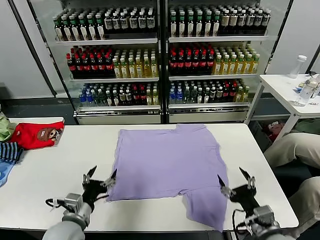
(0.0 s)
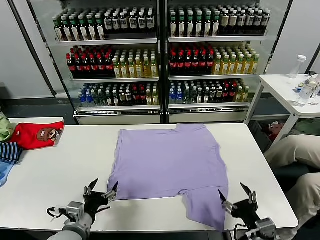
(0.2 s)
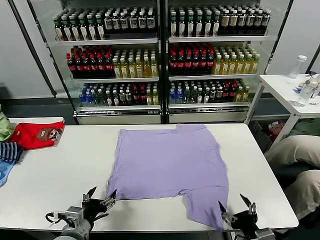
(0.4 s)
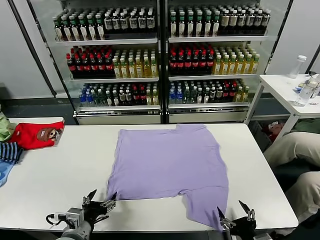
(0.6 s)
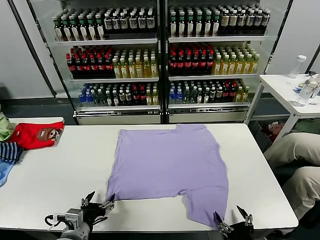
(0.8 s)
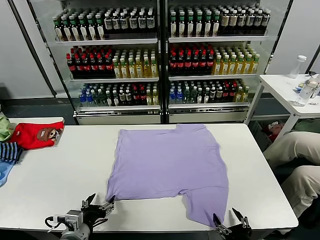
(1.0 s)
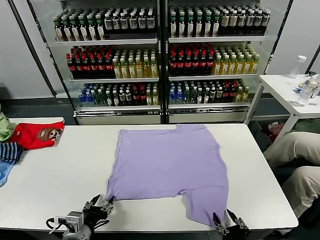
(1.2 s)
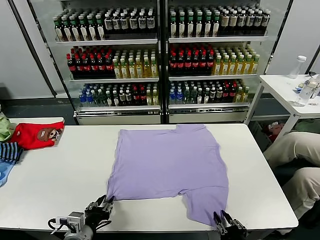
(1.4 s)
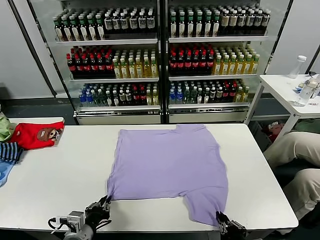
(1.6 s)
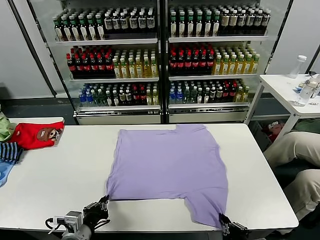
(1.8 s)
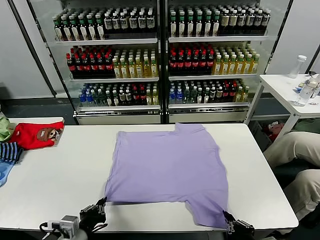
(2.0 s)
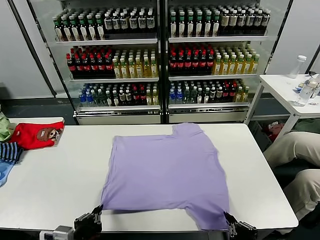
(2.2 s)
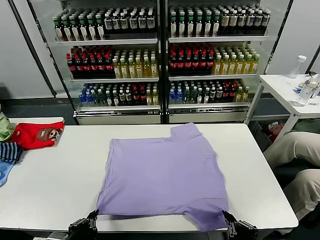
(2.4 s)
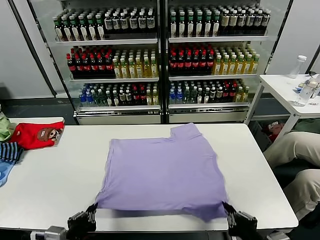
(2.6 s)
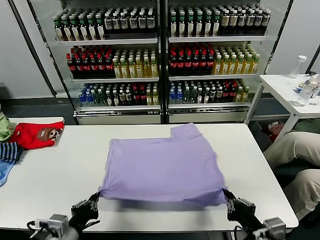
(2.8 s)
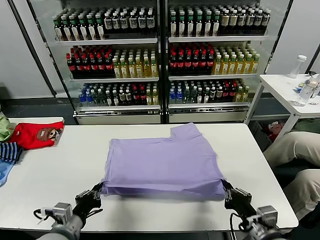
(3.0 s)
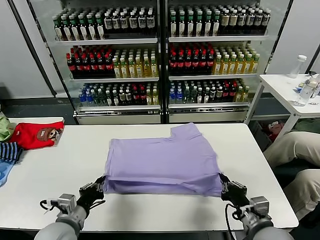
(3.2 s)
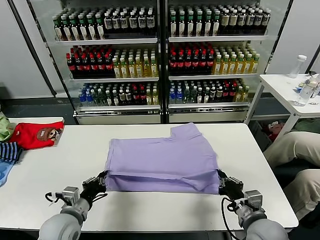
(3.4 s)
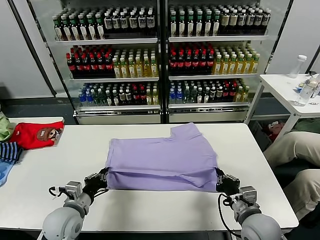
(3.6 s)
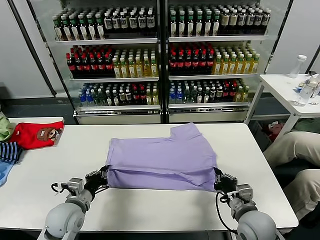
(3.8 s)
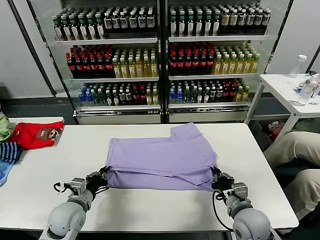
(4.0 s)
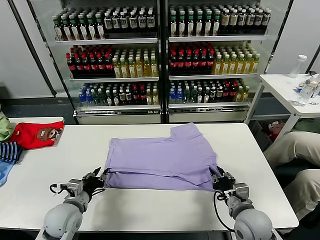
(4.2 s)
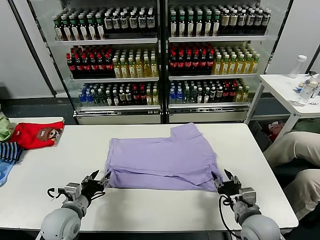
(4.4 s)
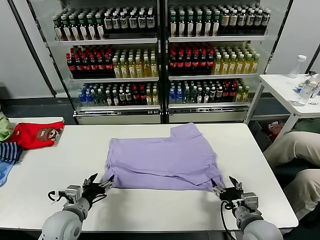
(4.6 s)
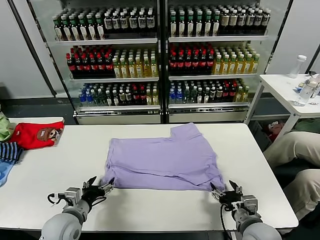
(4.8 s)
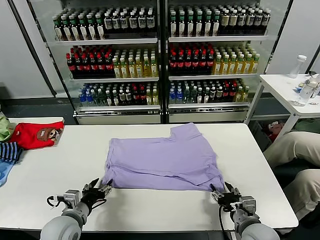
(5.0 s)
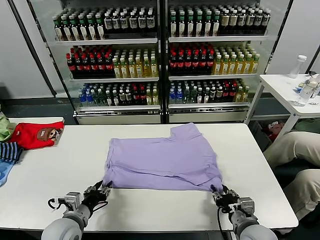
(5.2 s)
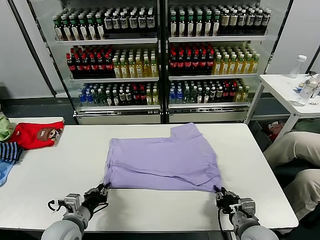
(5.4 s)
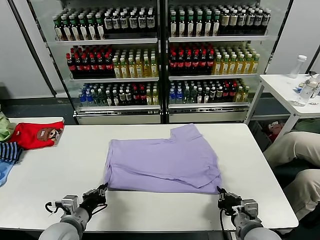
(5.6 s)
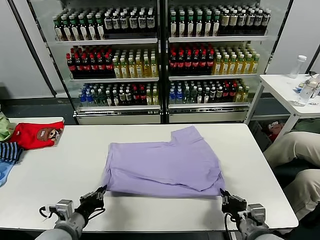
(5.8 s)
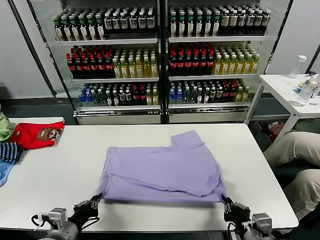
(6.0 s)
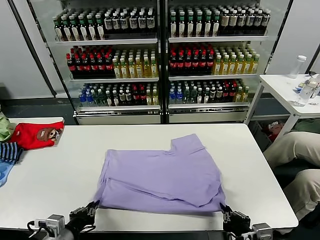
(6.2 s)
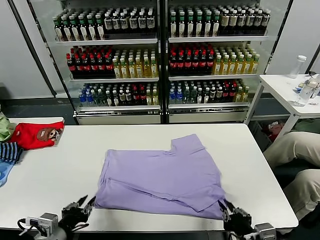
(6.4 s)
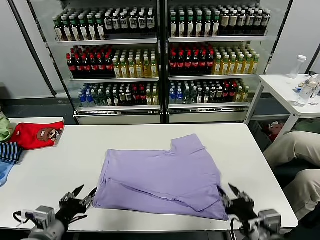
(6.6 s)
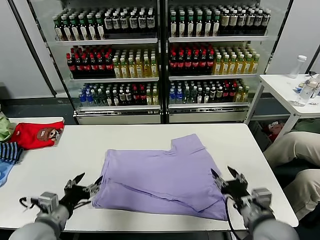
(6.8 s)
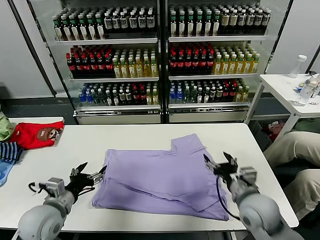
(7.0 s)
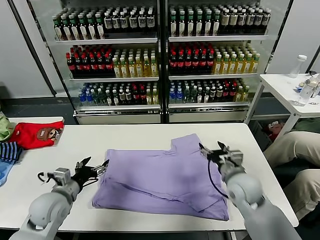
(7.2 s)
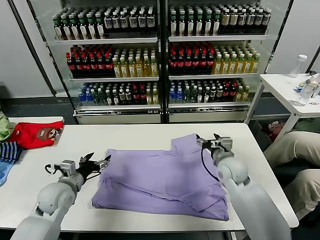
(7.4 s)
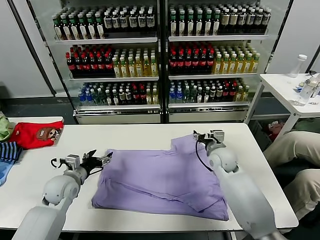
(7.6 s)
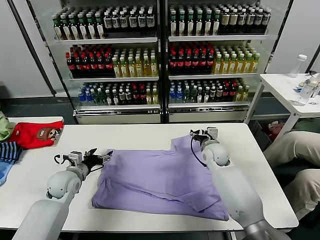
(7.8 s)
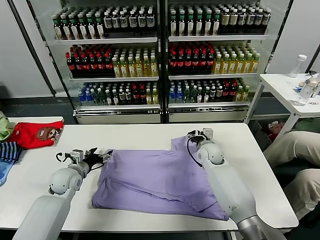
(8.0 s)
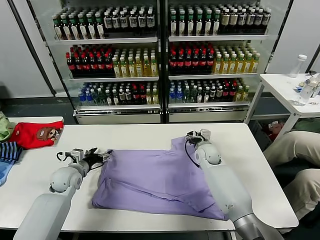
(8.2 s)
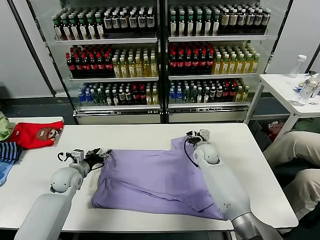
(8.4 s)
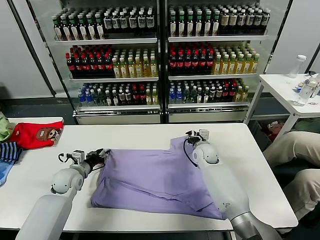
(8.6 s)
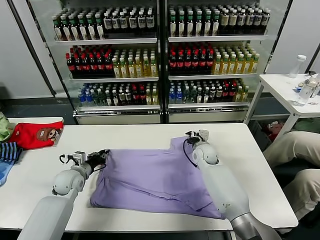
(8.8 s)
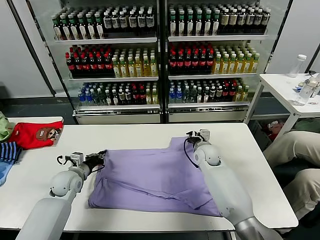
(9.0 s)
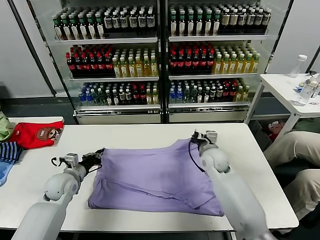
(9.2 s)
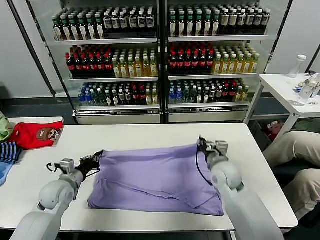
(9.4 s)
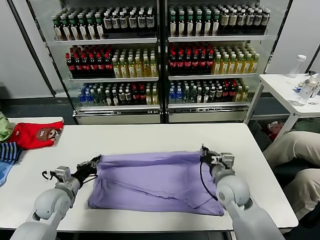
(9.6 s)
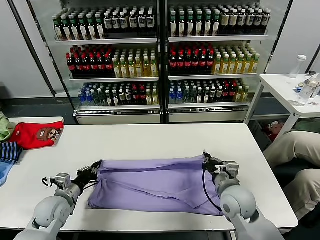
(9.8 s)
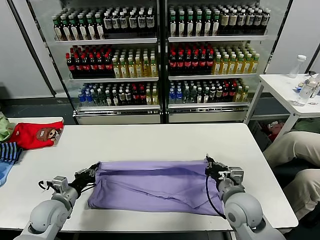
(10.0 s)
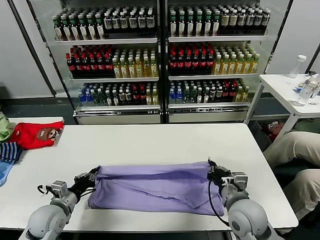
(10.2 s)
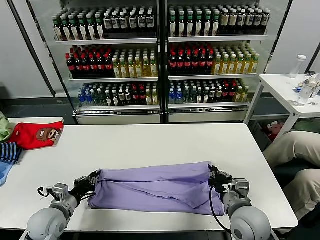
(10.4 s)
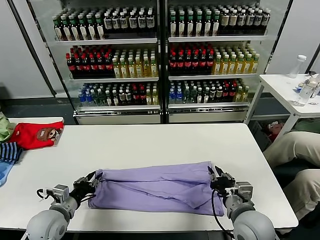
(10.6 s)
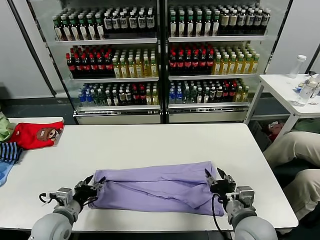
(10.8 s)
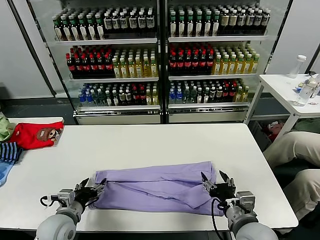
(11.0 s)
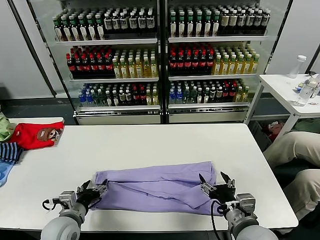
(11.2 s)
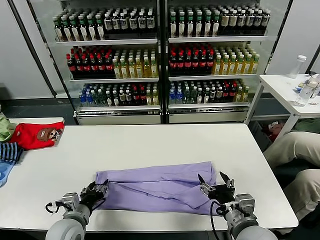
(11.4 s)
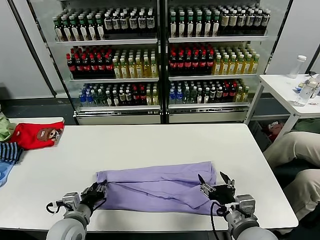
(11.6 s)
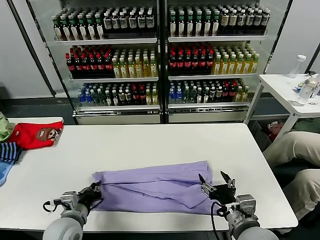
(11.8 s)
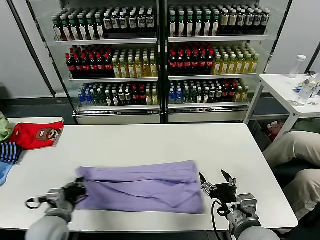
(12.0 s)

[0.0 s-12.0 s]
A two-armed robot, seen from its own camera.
Task of the whole recording: fold and organize the clothes.
Step, 0.0 to 2.2 s: use both grippers simultaneously to clamp the lower edge of the clothing fabric.
Step, 2.4 to 4.4 s: use both grippers to drag the lower edge of the fabric forward and fold it over the upper edge.
Step, 4.6 to 6.6 s: Drag the clothes downward with both gripper.
Step, 6.8 to 8.8 s: use both grippers simultaneously to clamp the upper edge of the clothing fabric.
Step, 9.0 to 11.2 s: use both grippers to drag the upper edge of the fabric backward and fold it over the lower edge.
Step, 11.4 to 11.8 s: use the left gripper to clamp the left edge of the fabric.
1.6 to 3.0 s: The left gripper moves some 5 cm backward and comes back. Meanwhile the right gripper travels forward and upward by roughly 10 cm.
3.0 to 4.4 s: The right gripper shifts by some 5 cm, and opens its fingers, while the left gripper moves forward, about 10 cm, and opens up.
4.4 to 6.0 s: Both grippers travel together backward, some 10 cm. The right gripper closes up, while the left gripper closes its fingers.
6.0 to 7.6 s: The right gripper goes roughly 35 cm forward, and opens up, while the left gripper goes approximately 20 cm forward, and opens.
7.6 to 9.0 s: The left gripper ends up approximately 5 cm from where it was, and closes up, while the right gripper closes its fingers.
9.0 to 10.4 s: The right gripper goes about 25 cm backward; the left gripper goes approximately 15 cm backward.
10.4 to 12.0 s: The left gripper ends up roughly 5 cm from where it was, and opens and closes again. Meanwhile the right gripper heads backward, covering about 5 cm, and opens up.

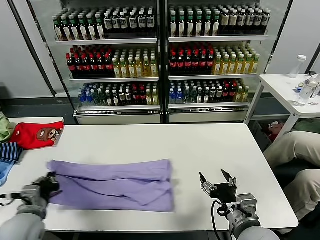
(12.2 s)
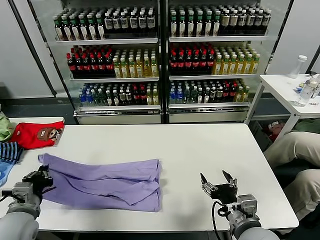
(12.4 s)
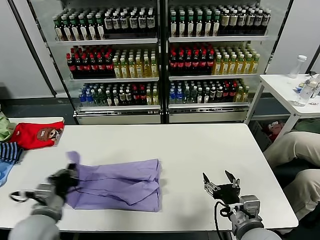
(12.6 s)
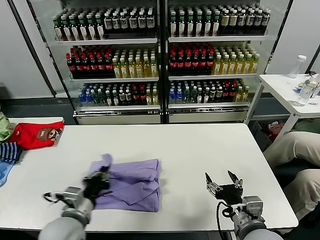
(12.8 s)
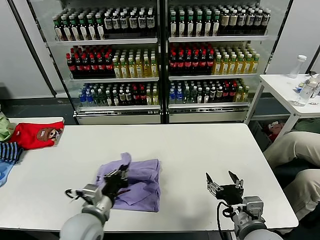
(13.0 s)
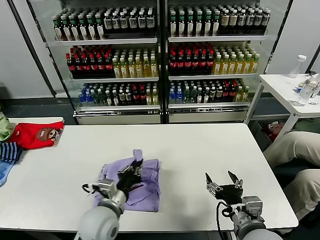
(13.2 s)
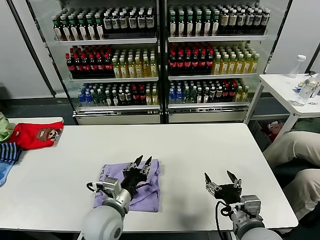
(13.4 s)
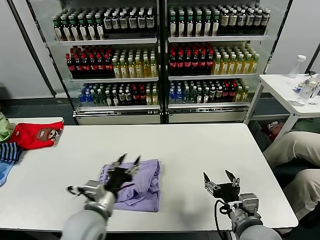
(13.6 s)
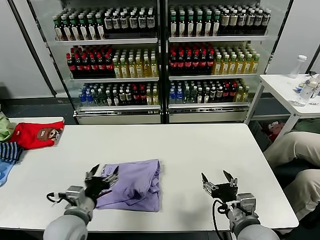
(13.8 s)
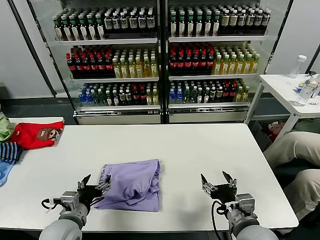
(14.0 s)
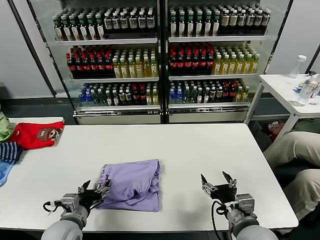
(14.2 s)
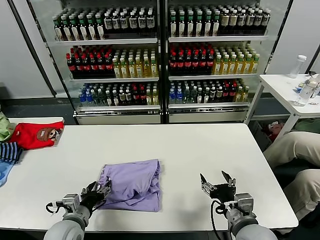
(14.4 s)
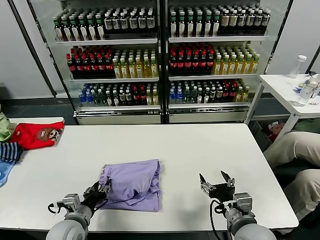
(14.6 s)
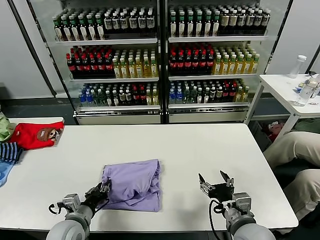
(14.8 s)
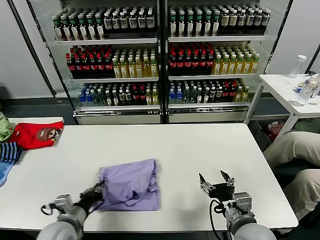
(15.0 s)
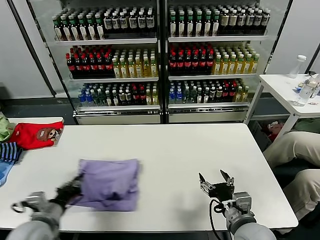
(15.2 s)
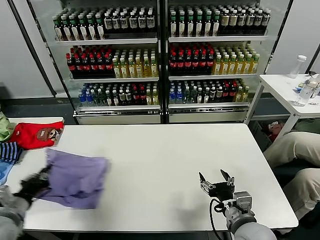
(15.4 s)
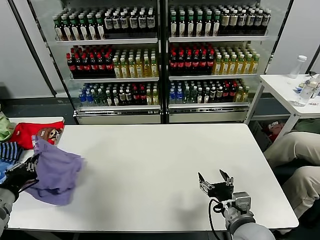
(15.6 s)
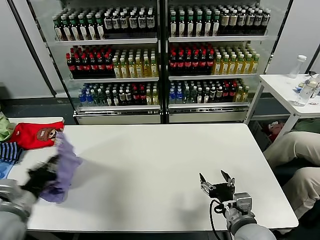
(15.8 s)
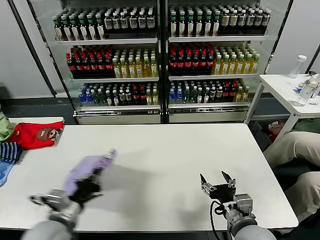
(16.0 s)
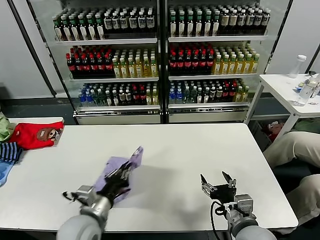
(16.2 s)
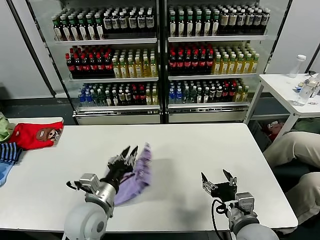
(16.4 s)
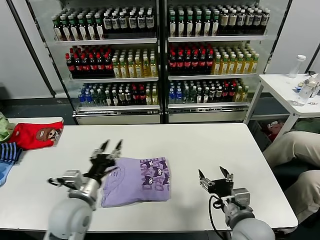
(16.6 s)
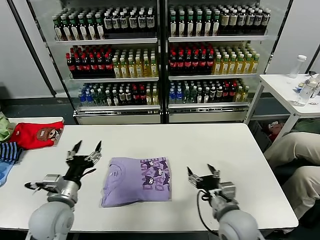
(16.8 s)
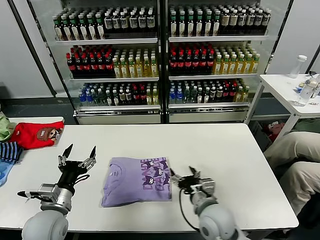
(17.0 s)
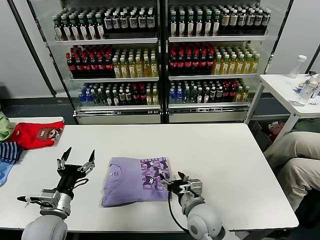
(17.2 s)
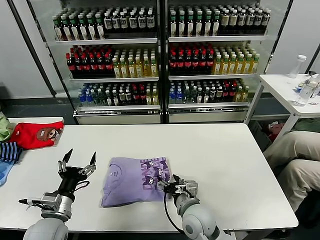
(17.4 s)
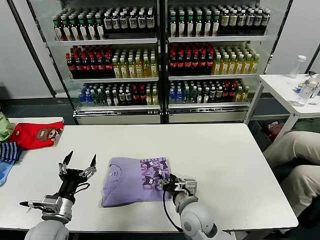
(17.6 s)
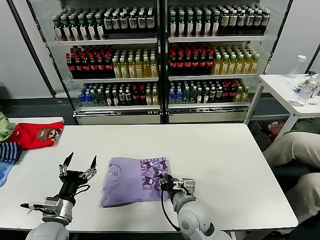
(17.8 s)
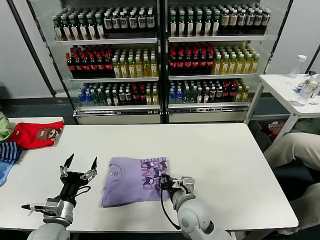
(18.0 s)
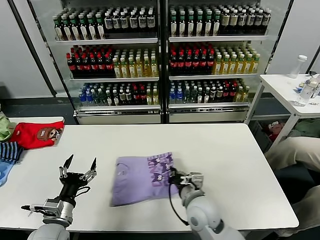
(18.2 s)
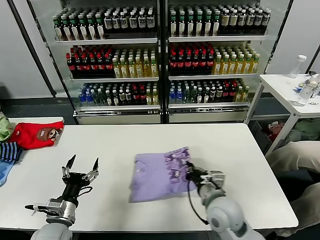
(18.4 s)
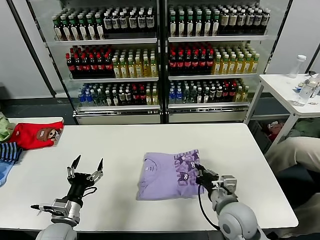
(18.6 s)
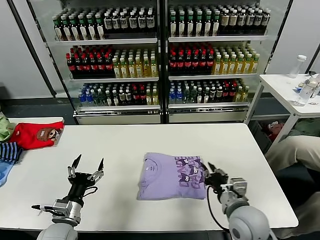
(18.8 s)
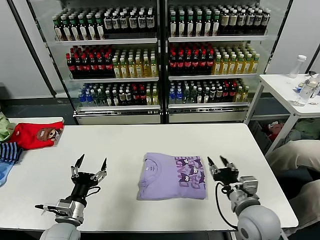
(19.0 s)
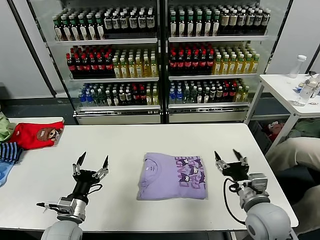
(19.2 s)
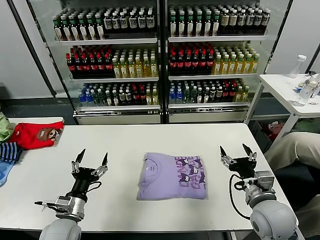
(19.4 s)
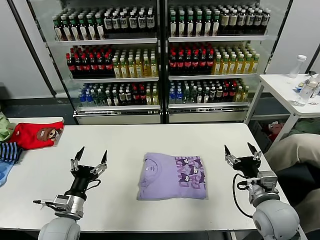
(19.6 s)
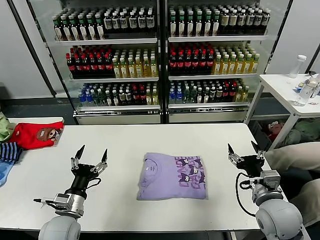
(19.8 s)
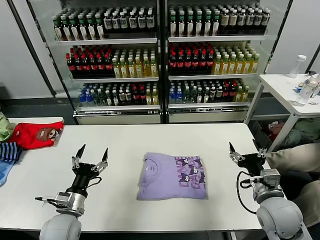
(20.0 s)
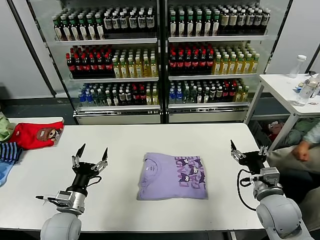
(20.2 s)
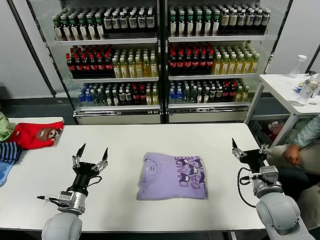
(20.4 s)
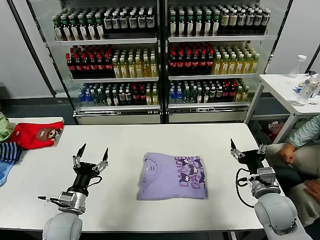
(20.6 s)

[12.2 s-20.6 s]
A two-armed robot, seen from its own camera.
Task of the whole recording: fold and organize the clothes.
Step, 12.2 to 13.4 s: use the left gripper to drag the left edge of the fabric to the left and folds it over the right edge.
Step, 13.8 to 16.8 s: Flip the folded clothes over with left gripper.
Step, 17.0 to 19.2 s: Drag the clothes to the center of the table.
12.2 to 13.6 s: The left gripper is displaced to the right by some 20 cm, and opens up.
13.6 to 15.0 s: The left gripper shifts some 15 cm to the left and downward, and closes.
15.0 to 16.4 s: The left gripper heads to the right and upward, covering about 15 cm.
16.4 to 17.8 s: The left gripper heads to the left and downward, covering some 15 cm, and opens, while the right gripper is displaced to the left, forward and downward by approximately 15 cm, and closes up.
17.8 to 19.2 s: The right gripper travels to the right and upward by approximately 20 cm, and closes, then opens again.
19.2 to 20.6 s: The right gripper heads to the right, covering some 5 cm.

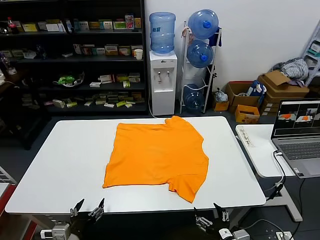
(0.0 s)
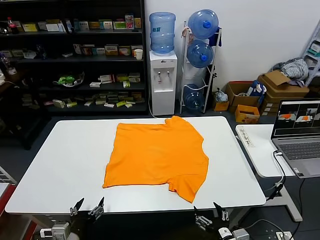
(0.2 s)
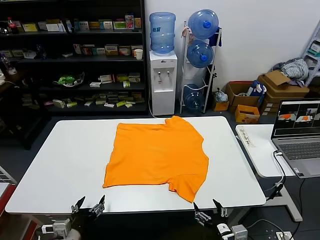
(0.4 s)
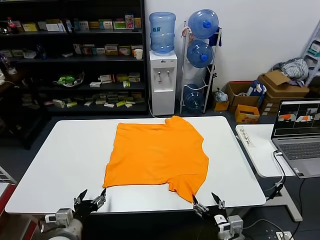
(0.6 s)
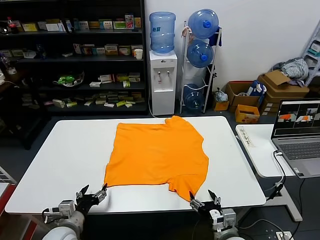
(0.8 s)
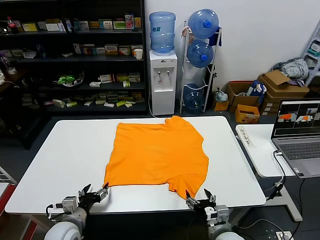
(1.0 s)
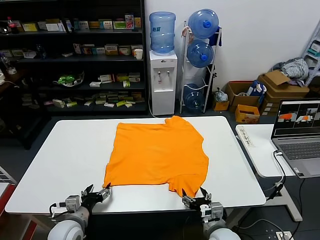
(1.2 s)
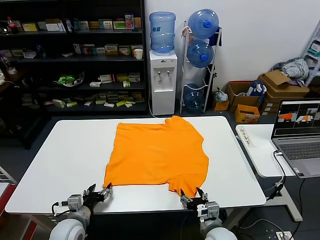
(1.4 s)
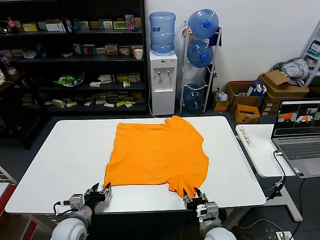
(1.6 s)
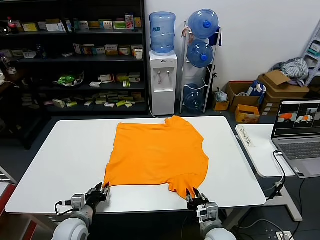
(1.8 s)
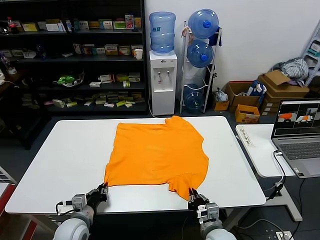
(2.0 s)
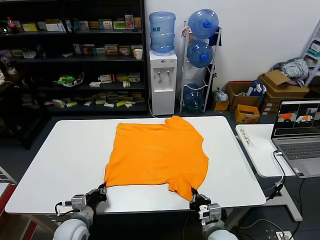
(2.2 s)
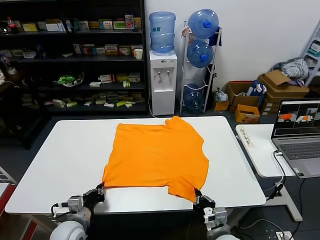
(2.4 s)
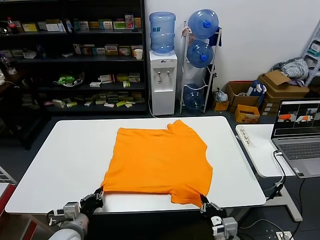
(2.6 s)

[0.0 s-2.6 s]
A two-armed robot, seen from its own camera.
Task of the whole recording: fold and organize the clothes.
Step, 0.0 to 2.2 s: use both grippers simultaneously to clamp the lower edge of the clothing fabric.
1.2 to 2.6 s: The right gripper moves backward, roughly 5 cm, and closes. Meanwhile the left gripper closes its fingers.
